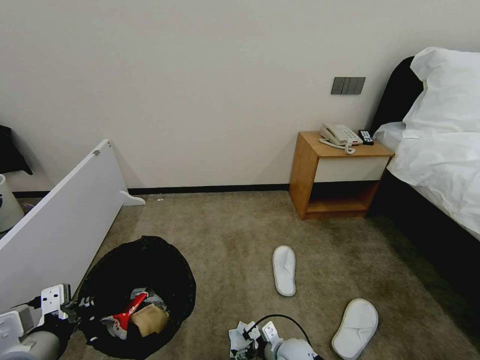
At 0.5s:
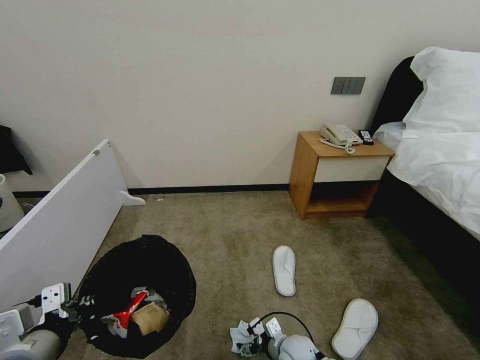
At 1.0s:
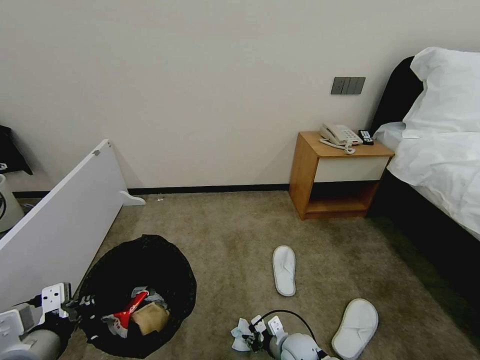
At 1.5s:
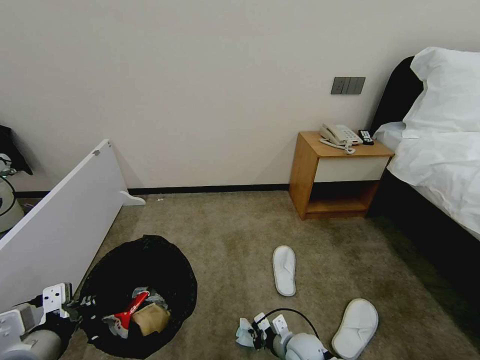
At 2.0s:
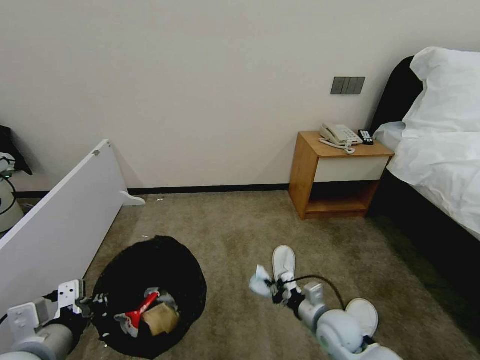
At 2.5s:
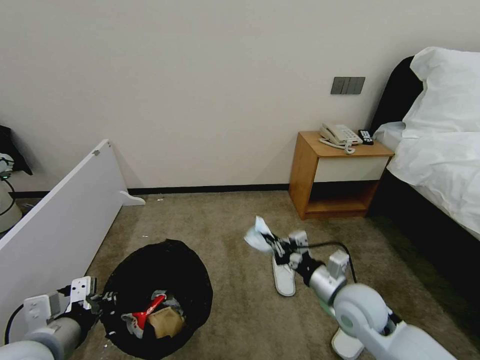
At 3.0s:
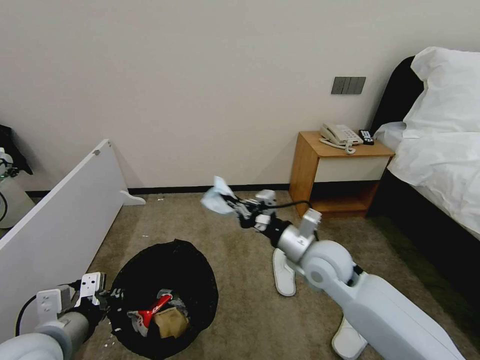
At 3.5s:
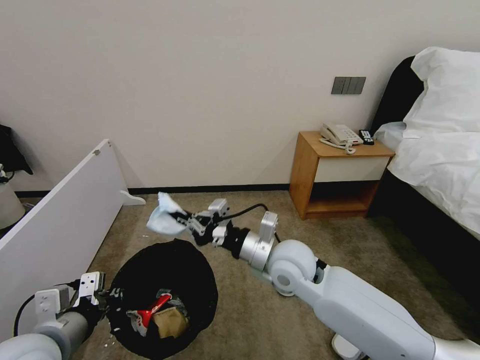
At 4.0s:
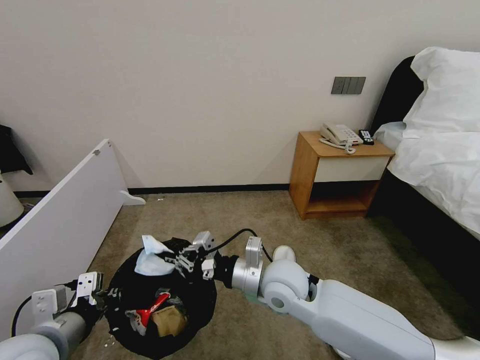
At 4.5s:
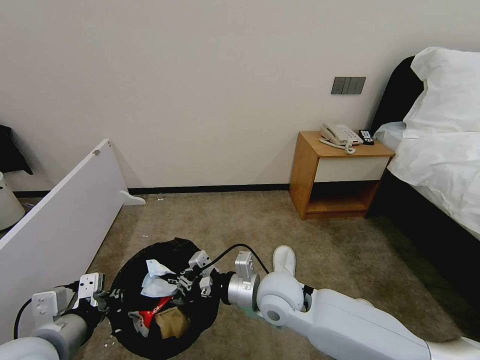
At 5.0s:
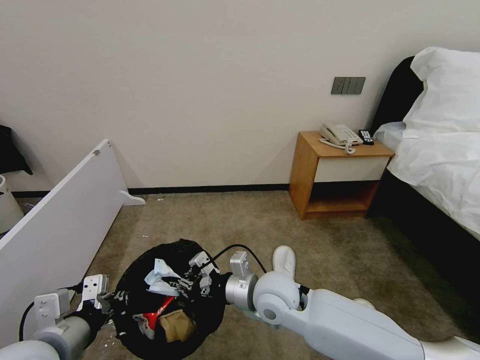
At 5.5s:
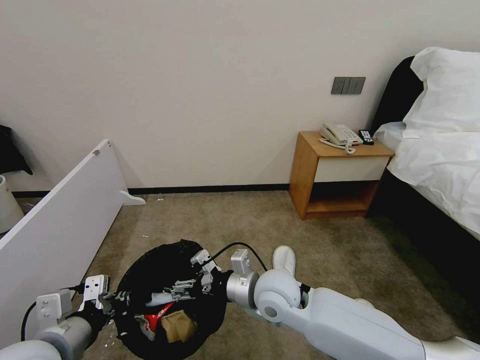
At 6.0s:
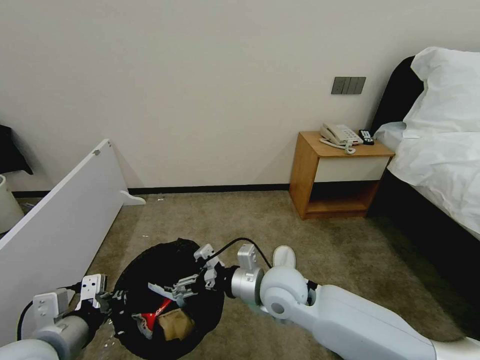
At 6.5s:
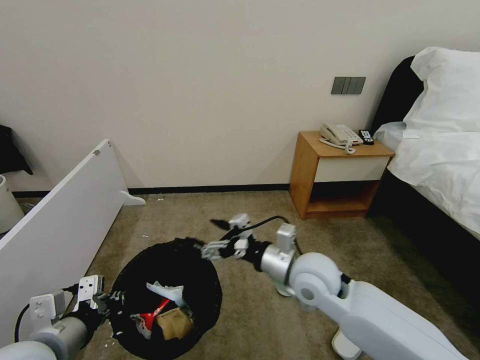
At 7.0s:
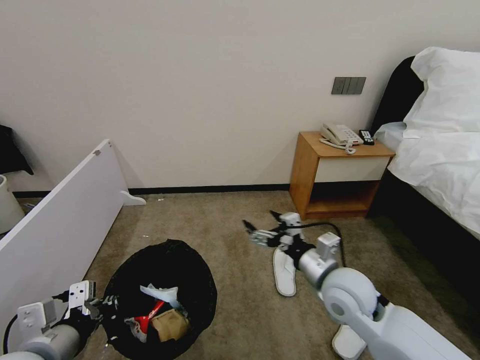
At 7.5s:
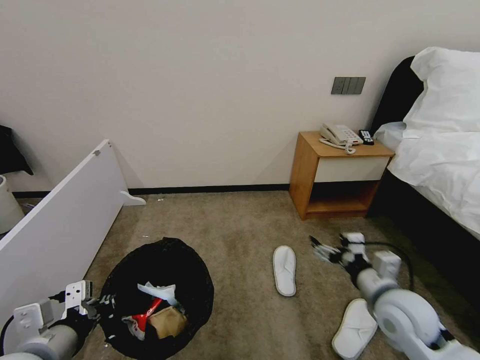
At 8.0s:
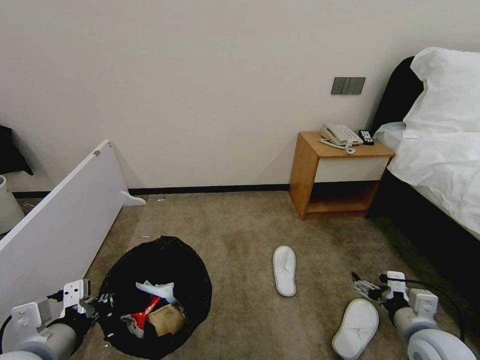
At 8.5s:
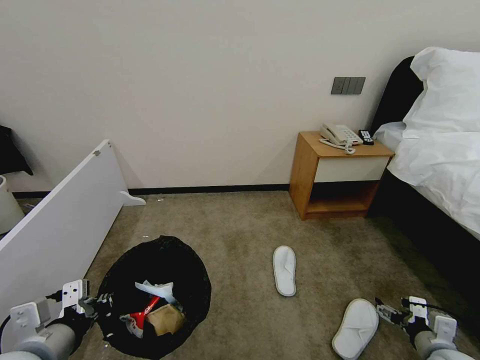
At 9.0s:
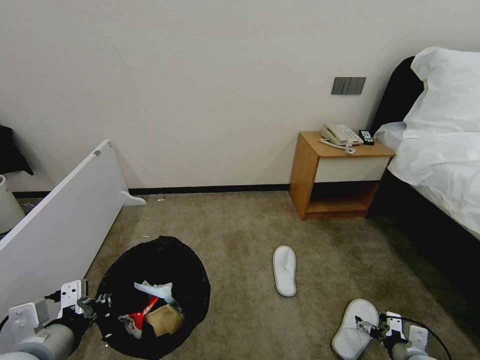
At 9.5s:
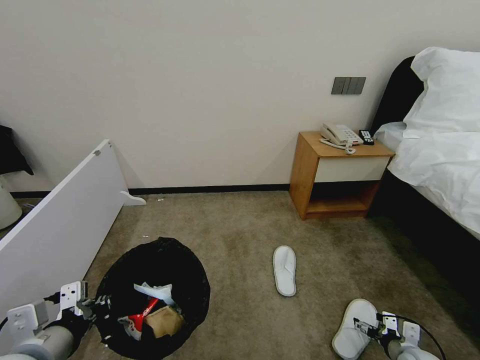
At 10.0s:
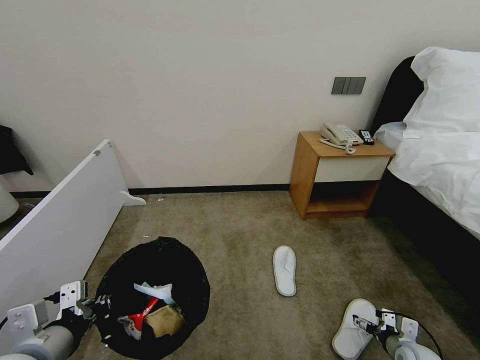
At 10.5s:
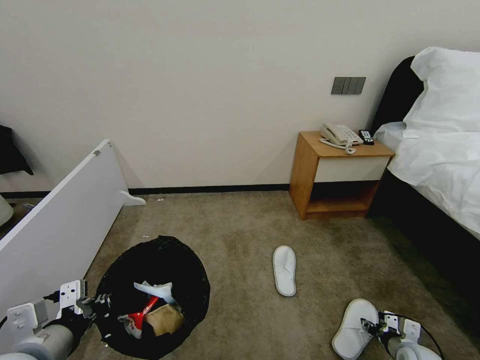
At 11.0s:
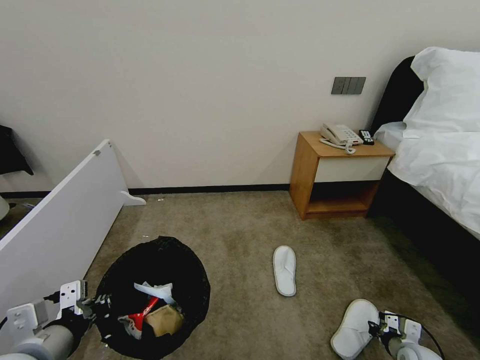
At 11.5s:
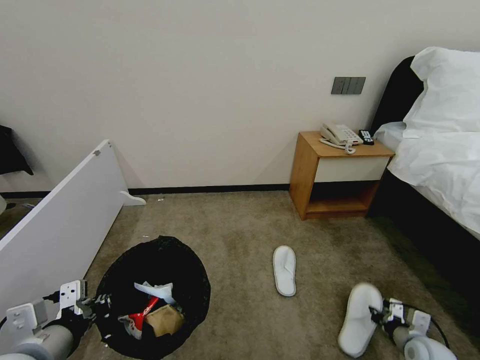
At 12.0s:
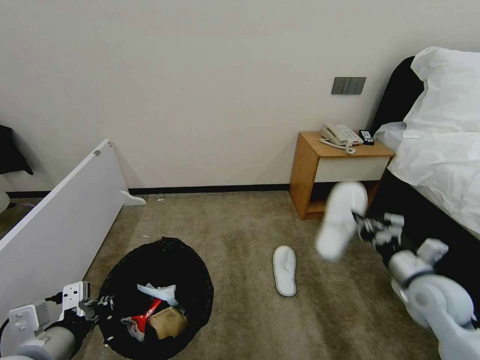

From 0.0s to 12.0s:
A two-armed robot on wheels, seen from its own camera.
Task of the whole recording: Pick up the trash bin, then pick up the garbage from the floor and place it into the trash bin.
From 0.0s to 2.0s: The right gripper travels upward and to the right by some 15 cm, and closes.
From 2.0s to 4.0s: The right gripper heads upward and to the left, covering approximately 20 cm.
From 4.0s to 6.0s: The right gripper opens up.
From 6.0s to 8.0s: The right gripper goes some 30 cm to the right.
From 8.0s to 10.0s: The right gripper goes about 20 cm downward and to the right.
From 10.0s to 12.0s: The right gripper is displaced upward by roughly 25 cm, and closes its fingers.

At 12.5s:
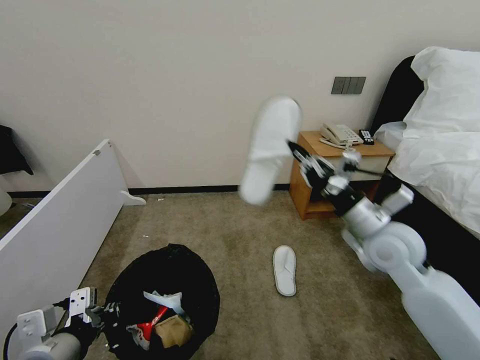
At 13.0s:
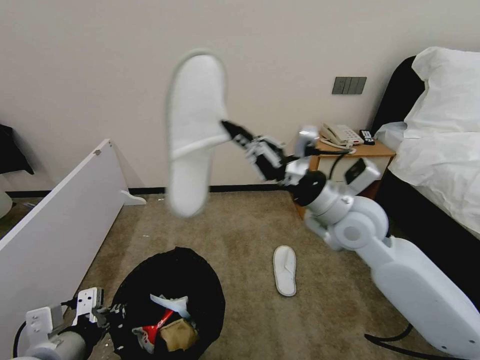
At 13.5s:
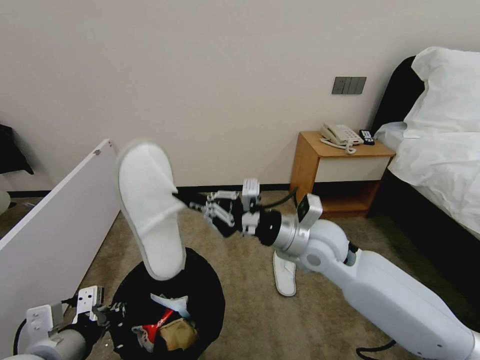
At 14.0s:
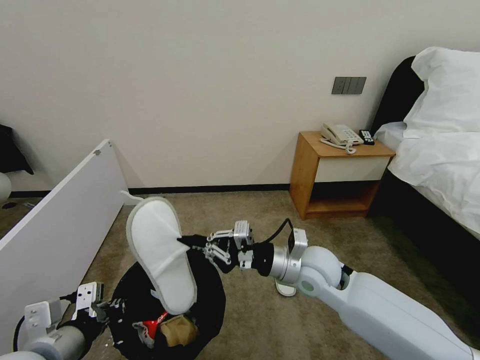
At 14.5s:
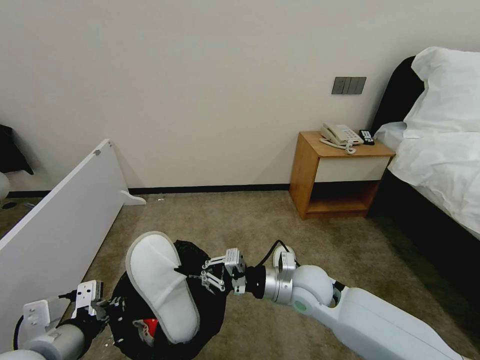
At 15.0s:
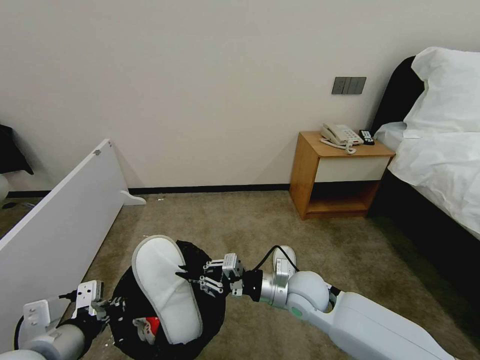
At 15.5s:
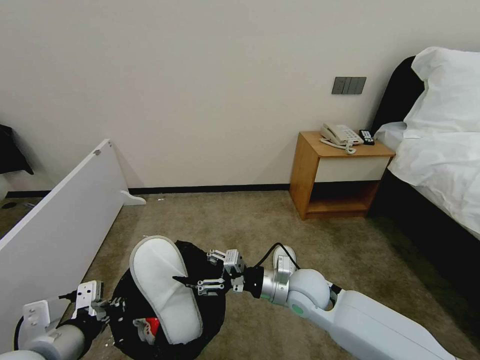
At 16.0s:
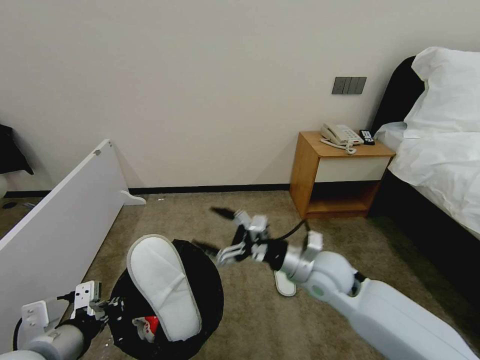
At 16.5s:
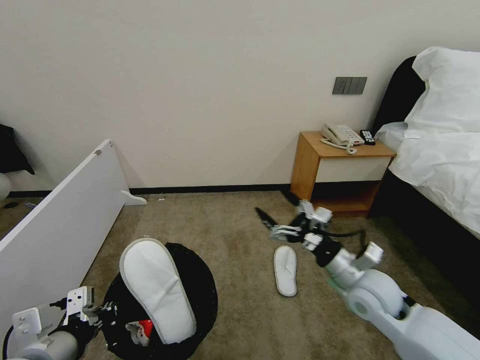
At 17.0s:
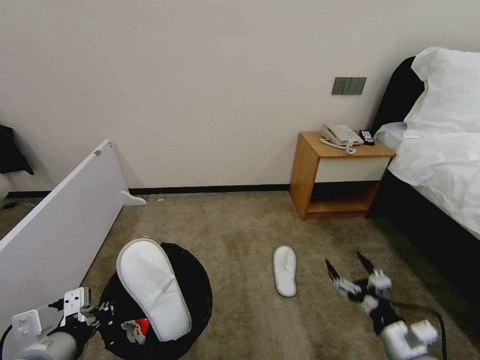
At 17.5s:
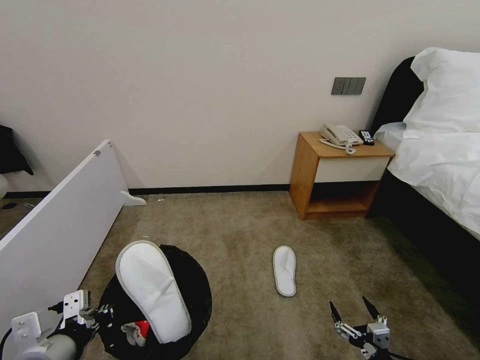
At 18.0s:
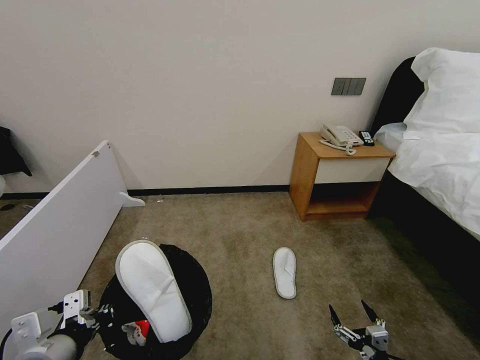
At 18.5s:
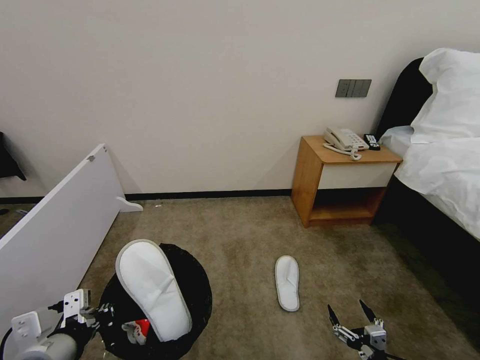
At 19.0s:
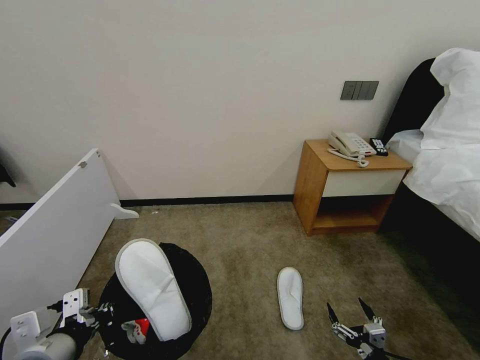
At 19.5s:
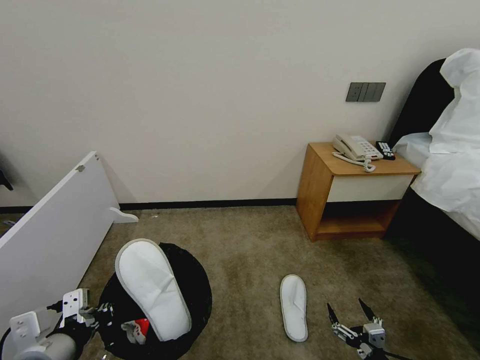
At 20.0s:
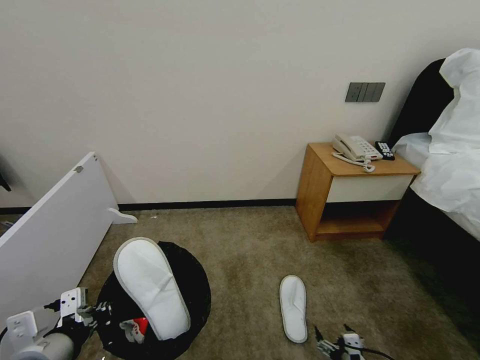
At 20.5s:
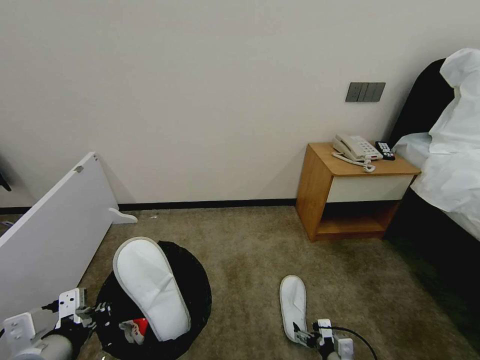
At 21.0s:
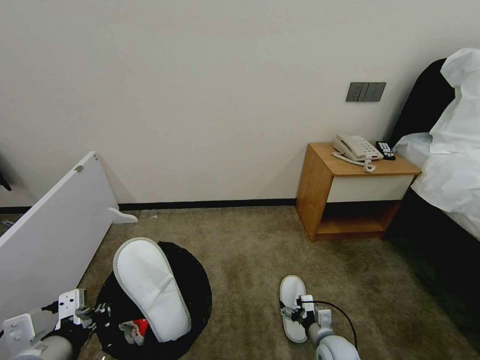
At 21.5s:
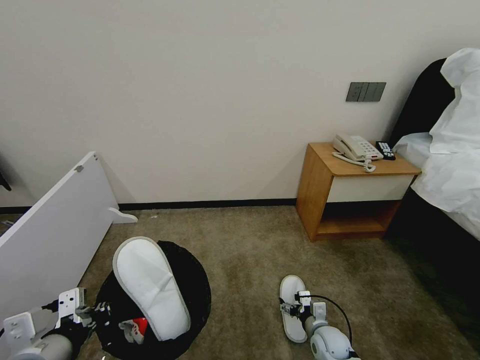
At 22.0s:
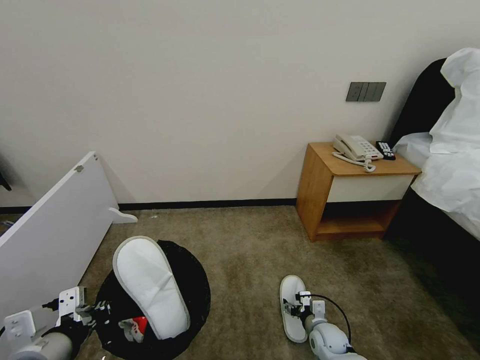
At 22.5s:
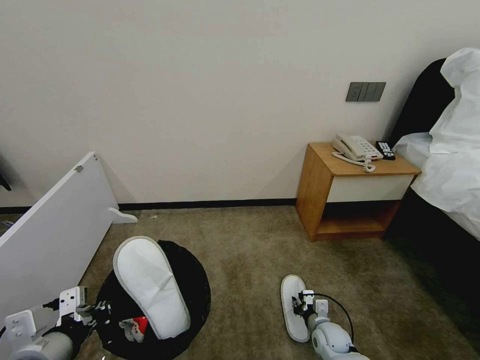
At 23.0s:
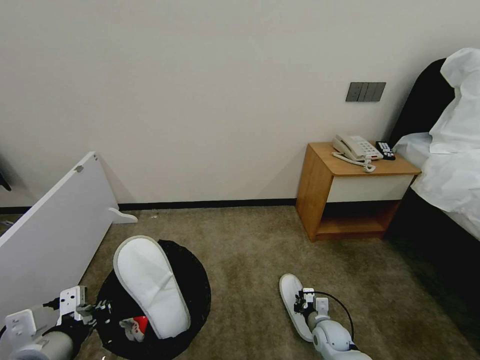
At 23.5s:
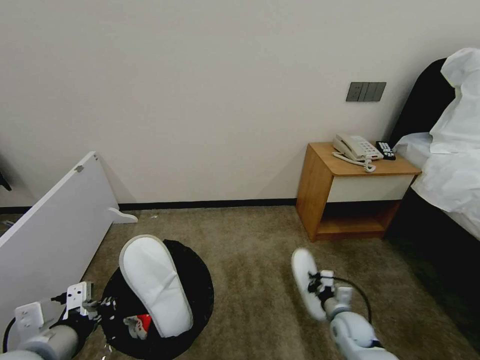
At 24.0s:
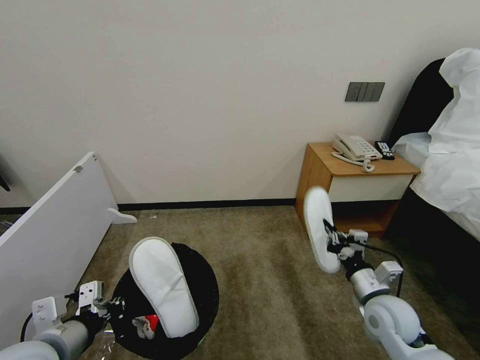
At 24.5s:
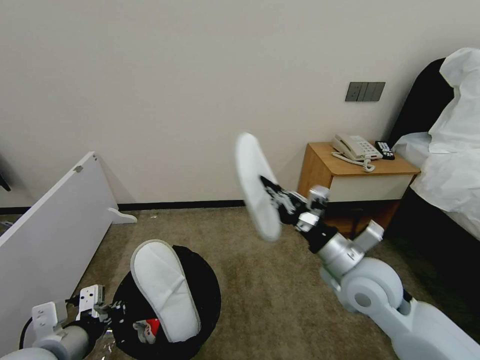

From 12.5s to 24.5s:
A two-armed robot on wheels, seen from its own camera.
Task of the whole recording: Pick up the trash bin, then pick up the garbage from the floor and place it into the trash bin.
From 12.5s to 14.5s: The right gripper travels to the left and downward by some 20 cm.
From 14.5s to 16.5s: The right gripper shifts approximately 10 cm to the right, and opens.
From 16.5s to 18.5s: The right gripper travels downward, backward and to the right by about 30 cm.
From 18.5s to 20.5s: The right gripper shifts about 10 cm forward and to the left.
From 20.5s to 22.5s: The right gripper is displaced forward by about 10 cm, and closes.
From 22.5s to 24.5s: The right gripper goes approximately 35 cm upward.

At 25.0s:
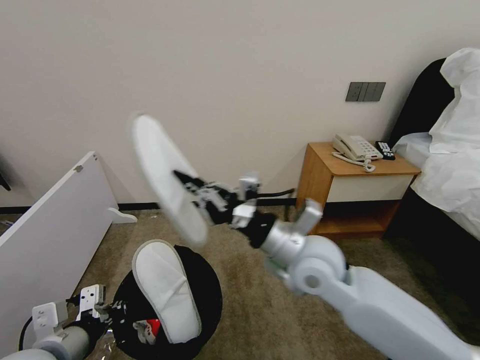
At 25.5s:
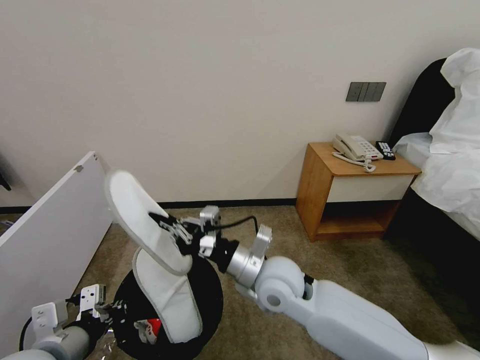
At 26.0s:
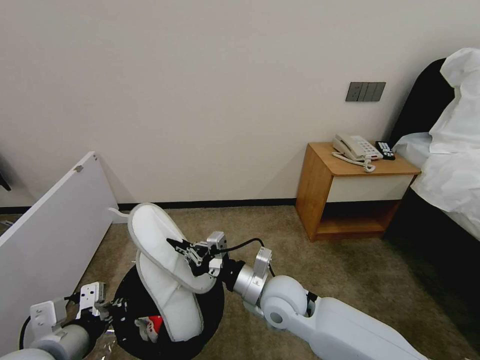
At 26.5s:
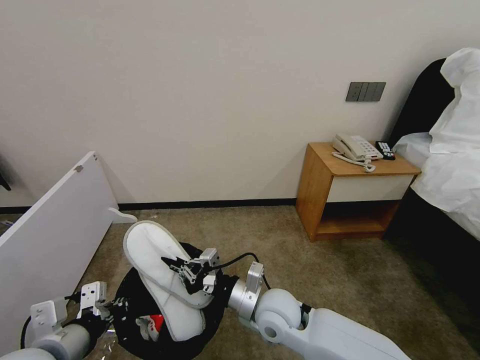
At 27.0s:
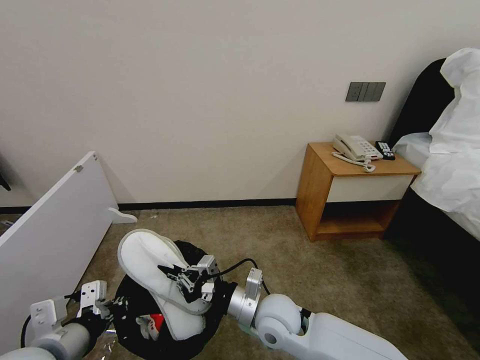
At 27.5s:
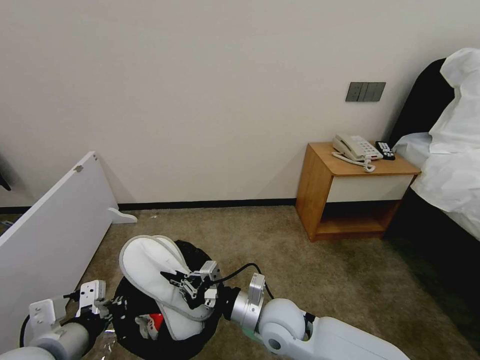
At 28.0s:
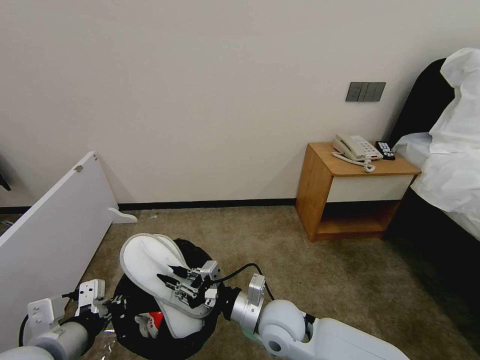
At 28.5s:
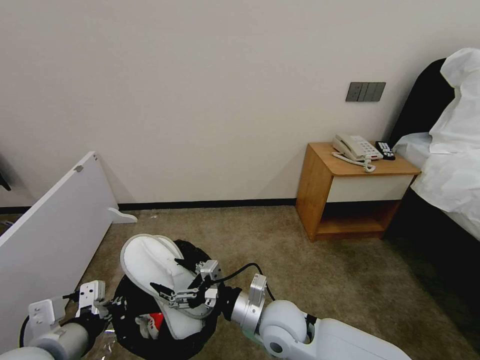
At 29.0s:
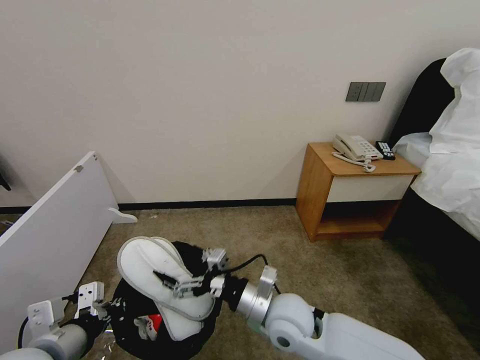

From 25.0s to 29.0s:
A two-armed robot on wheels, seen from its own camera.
Task of the whole recording: Pick up the trash bin, then pick up the garbage from the floor and place it into the trash bin.
From 25.0s to 27.0s: The right gripper travels downward by approximately 15 cm.
From 27.0s to 29.0s: The right gripper opens.
